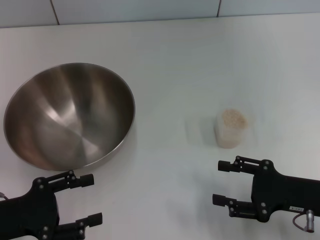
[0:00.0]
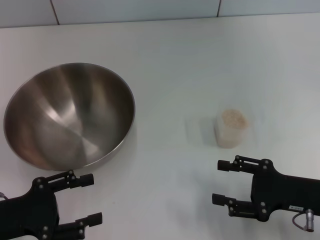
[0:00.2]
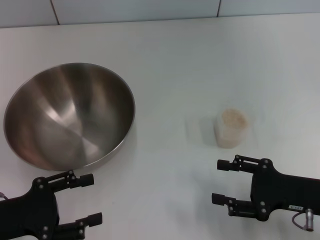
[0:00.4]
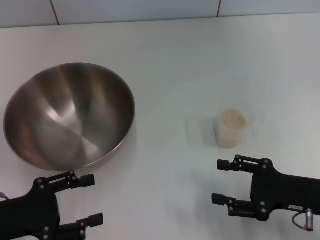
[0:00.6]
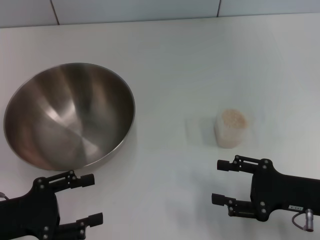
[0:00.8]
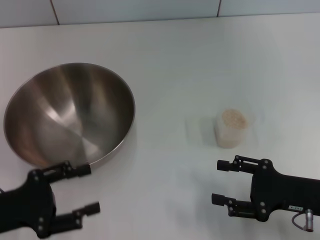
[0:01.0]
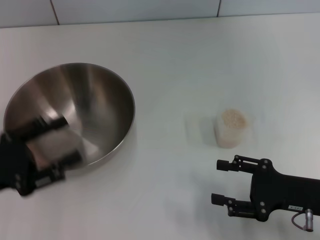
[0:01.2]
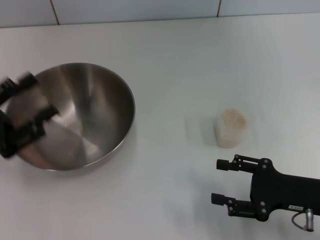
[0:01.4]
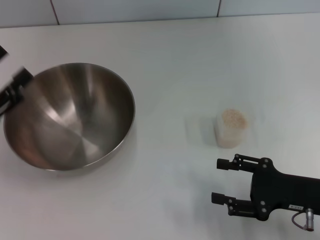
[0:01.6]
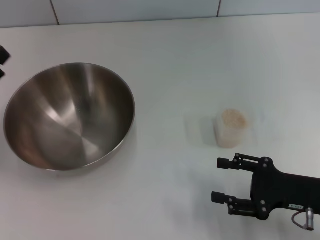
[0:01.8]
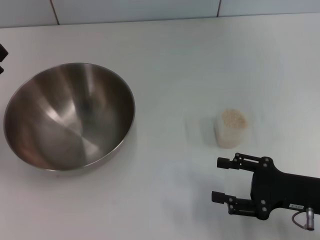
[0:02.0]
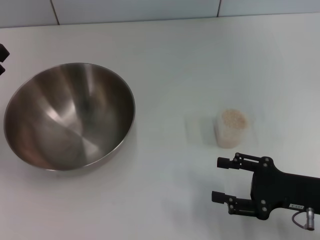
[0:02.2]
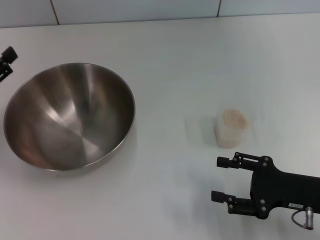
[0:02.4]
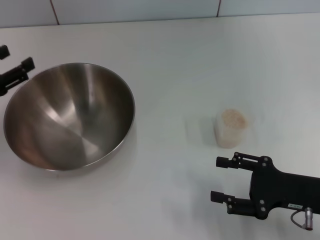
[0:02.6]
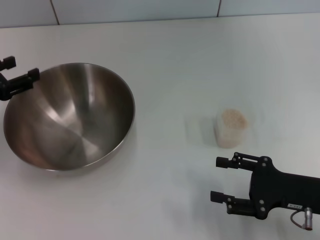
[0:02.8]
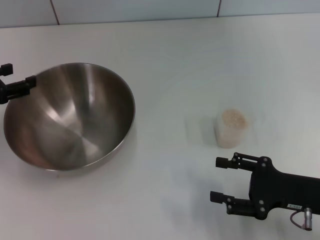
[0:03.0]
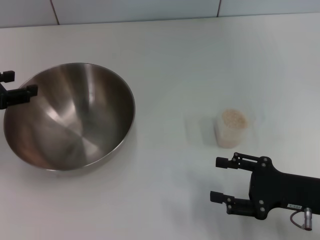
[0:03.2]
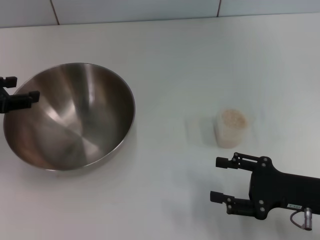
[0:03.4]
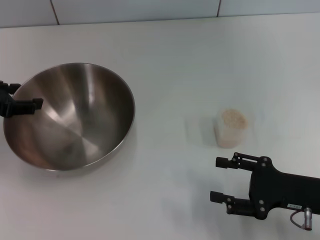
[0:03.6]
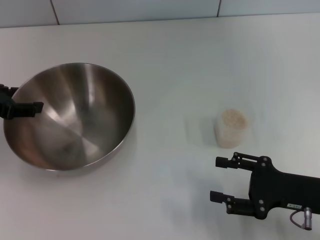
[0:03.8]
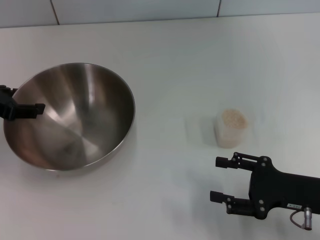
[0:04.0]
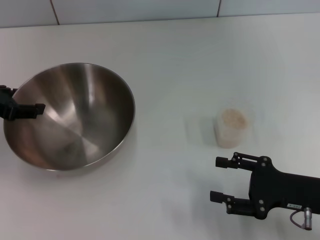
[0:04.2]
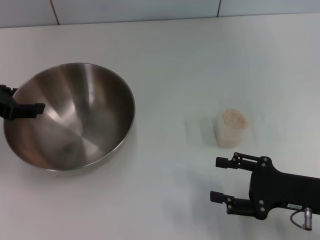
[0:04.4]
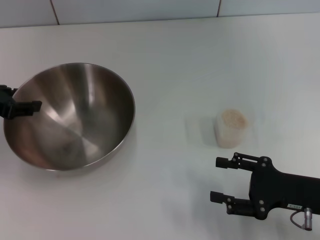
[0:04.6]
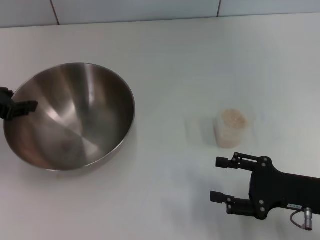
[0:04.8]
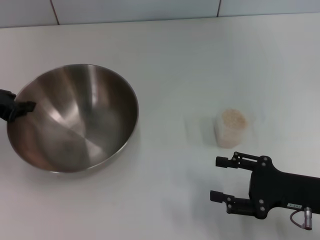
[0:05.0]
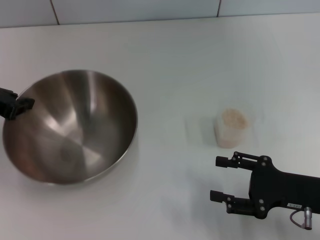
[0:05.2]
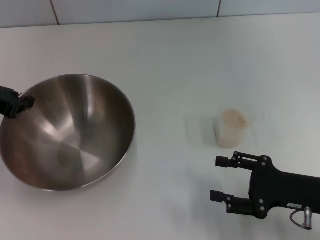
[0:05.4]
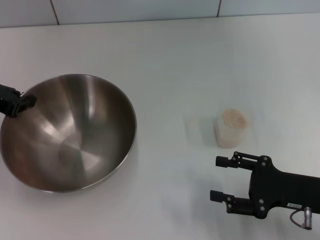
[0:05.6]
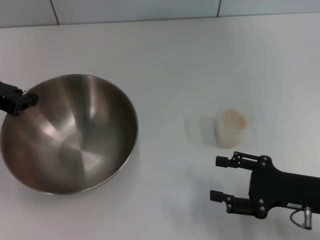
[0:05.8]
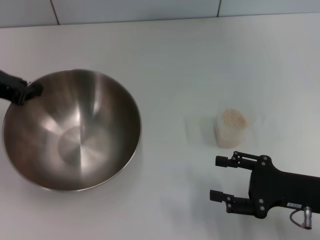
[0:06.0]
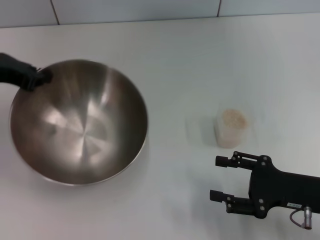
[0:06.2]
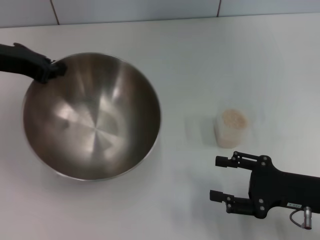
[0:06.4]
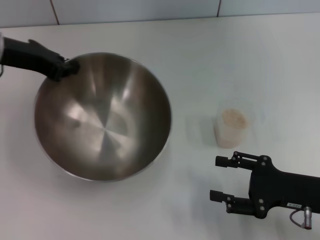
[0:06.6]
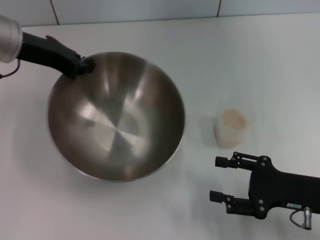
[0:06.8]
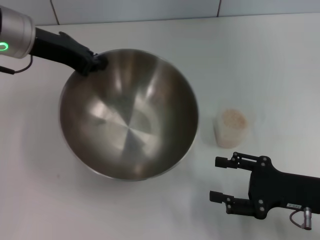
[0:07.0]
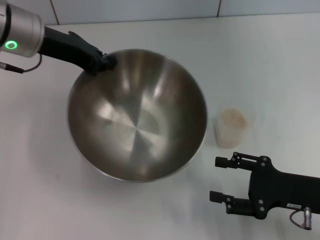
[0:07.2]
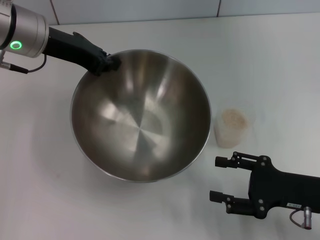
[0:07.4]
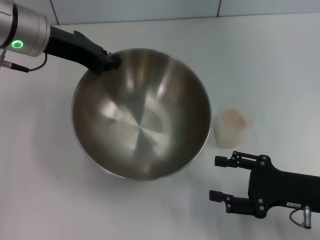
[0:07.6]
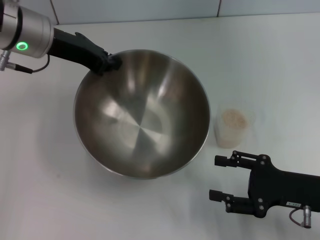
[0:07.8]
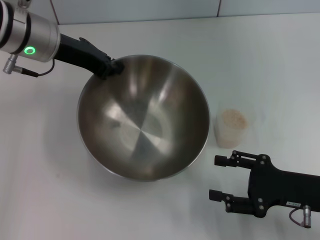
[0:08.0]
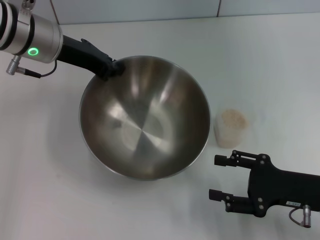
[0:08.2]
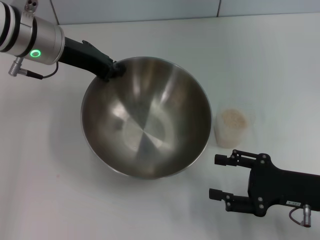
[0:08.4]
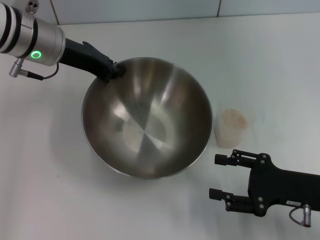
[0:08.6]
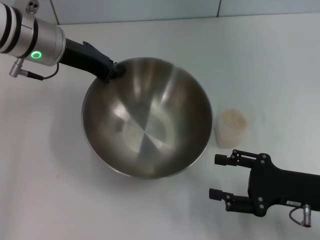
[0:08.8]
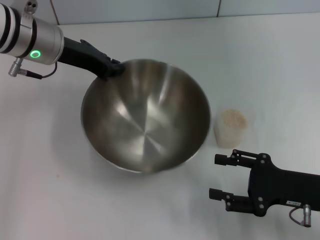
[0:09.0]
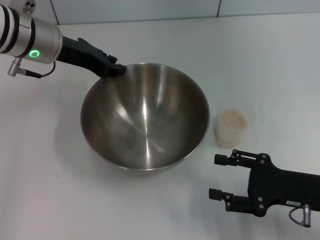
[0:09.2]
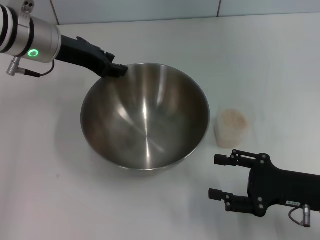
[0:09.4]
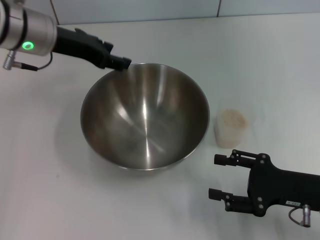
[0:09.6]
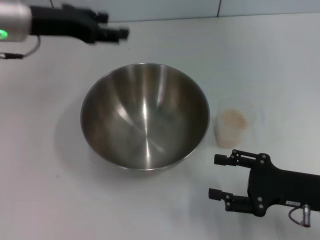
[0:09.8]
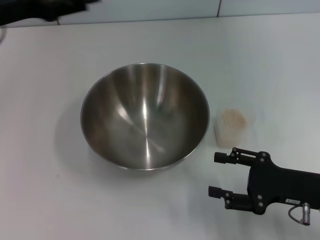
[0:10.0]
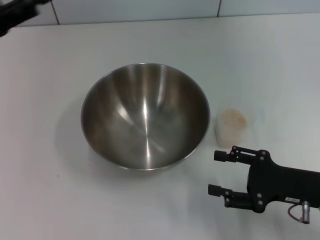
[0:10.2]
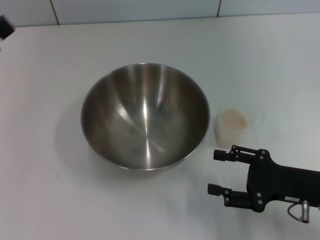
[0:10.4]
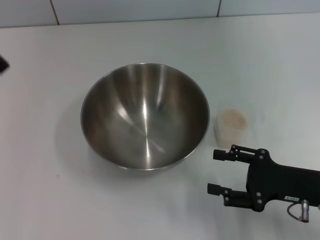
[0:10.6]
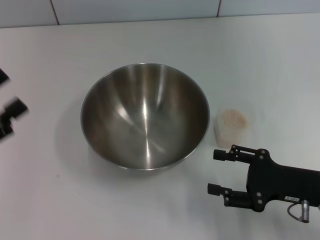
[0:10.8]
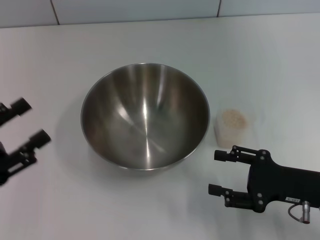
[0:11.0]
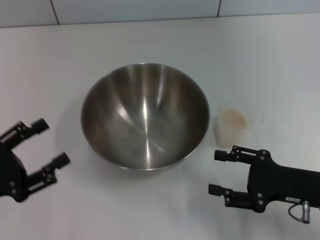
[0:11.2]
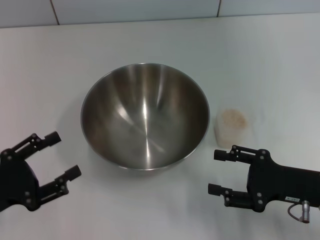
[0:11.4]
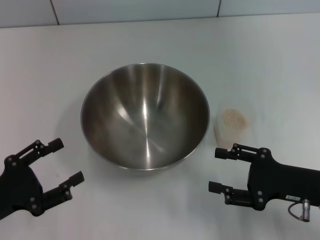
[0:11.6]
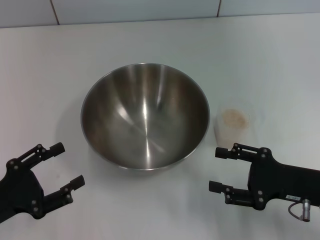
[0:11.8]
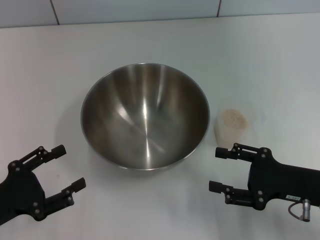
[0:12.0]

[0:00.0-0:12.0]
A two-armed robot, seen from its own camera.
Task of the whole recording: Place the bowl in the middle of the table with one hand and pour the rice from the grain cup into it with the other hand.
Step, 0:00.0 to 0:06.0: Pick up the bowl with the left gripper.
Step, 0:06.2 to 0:10.2: Place the bowl in the center of view with the left gripper.
0:00.0 to 0:01.6: The left gripper moves about 5 cm.
0:01.6 to 0:03.0: The left gripper is displaced forward by some 10 cm.
0:04.4 to 0:06.0: The left gripper closes.
0:06.0 to 0:07.6: The left gripper travels to the right by approximately 10 cm.
0:07.6 to 0:09.0: The grippers make only small movements.
0:09.0 to 0:10.4: The left gripper shifts about 20 cm to the left and backward, and opens its fingers.
0:10.4 to 0:12.0: The left gripper heads downward and backward, covering approximately 15 cm.

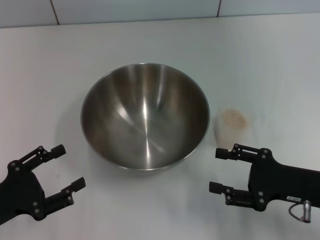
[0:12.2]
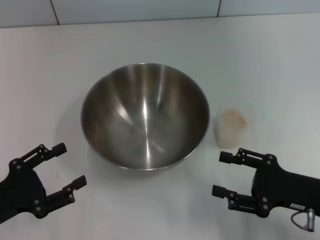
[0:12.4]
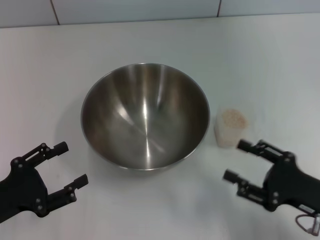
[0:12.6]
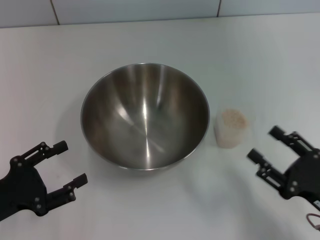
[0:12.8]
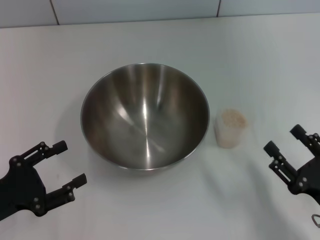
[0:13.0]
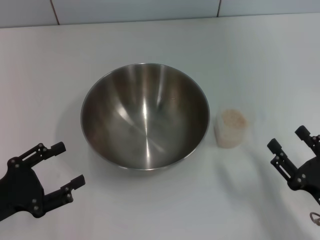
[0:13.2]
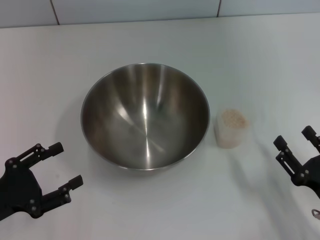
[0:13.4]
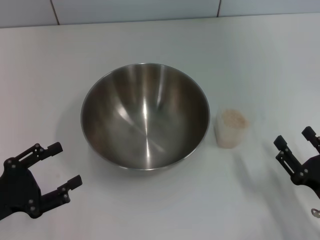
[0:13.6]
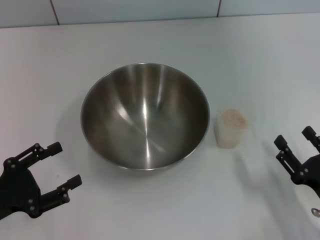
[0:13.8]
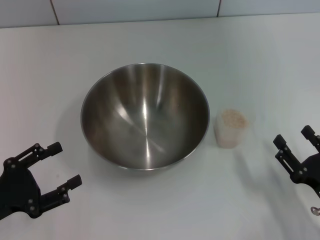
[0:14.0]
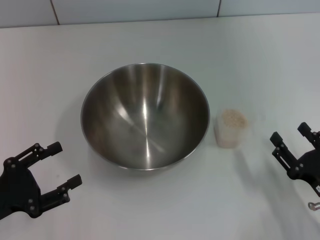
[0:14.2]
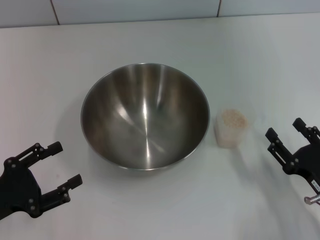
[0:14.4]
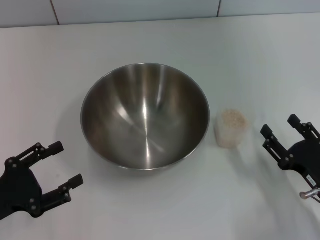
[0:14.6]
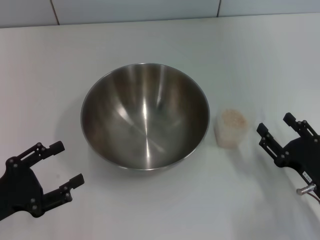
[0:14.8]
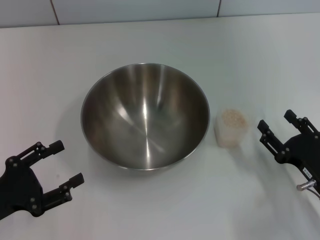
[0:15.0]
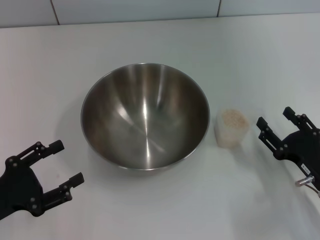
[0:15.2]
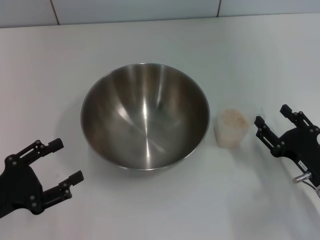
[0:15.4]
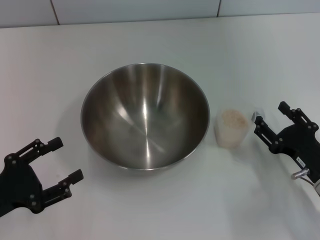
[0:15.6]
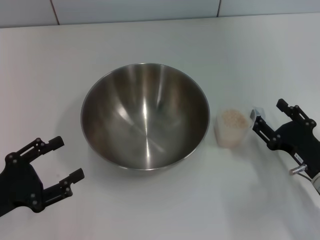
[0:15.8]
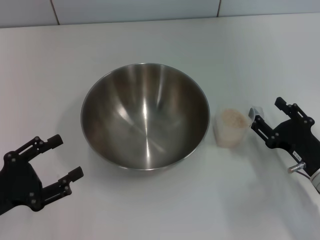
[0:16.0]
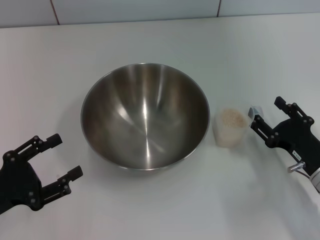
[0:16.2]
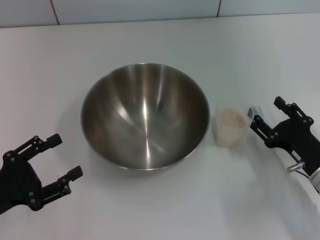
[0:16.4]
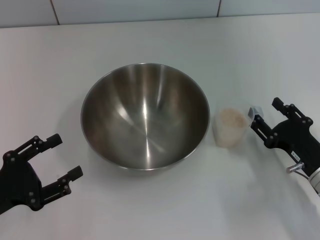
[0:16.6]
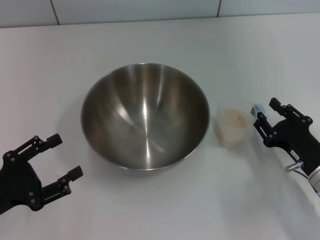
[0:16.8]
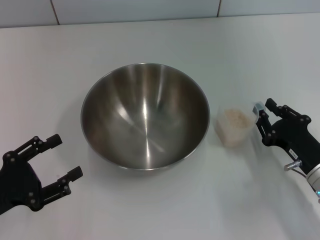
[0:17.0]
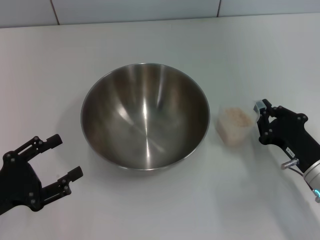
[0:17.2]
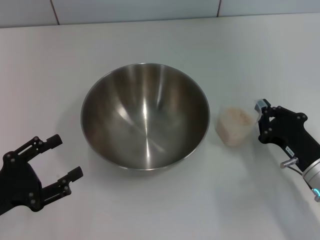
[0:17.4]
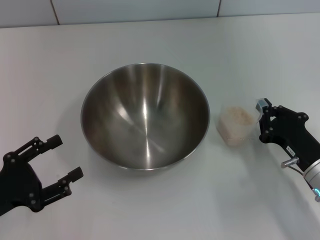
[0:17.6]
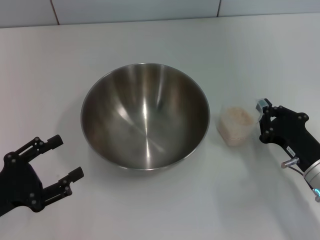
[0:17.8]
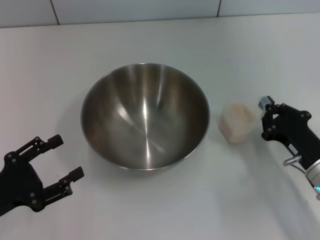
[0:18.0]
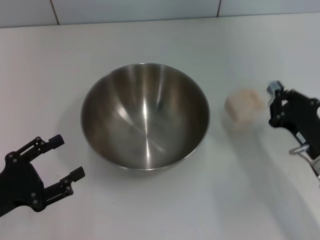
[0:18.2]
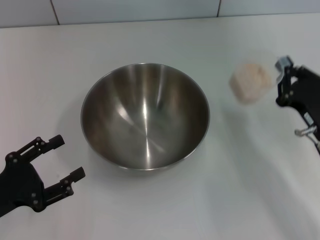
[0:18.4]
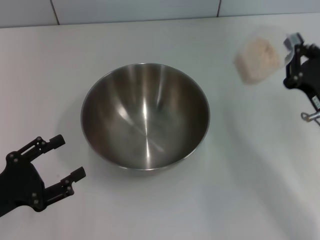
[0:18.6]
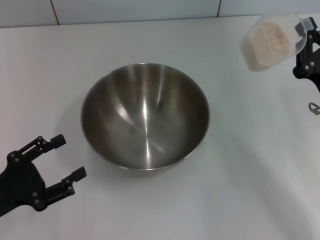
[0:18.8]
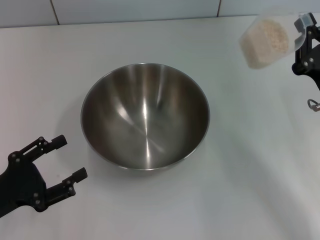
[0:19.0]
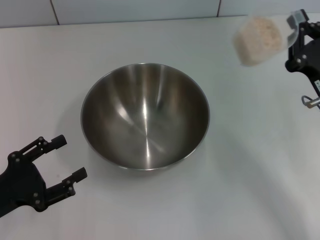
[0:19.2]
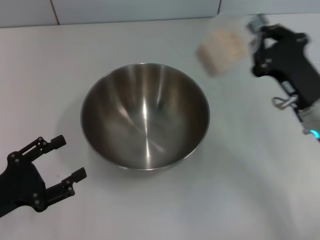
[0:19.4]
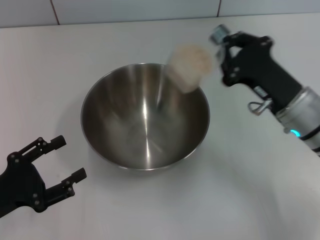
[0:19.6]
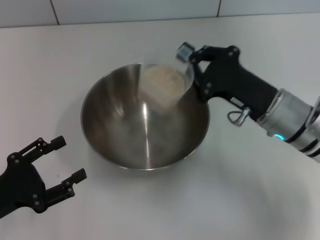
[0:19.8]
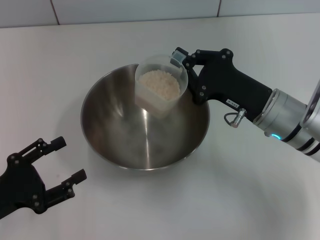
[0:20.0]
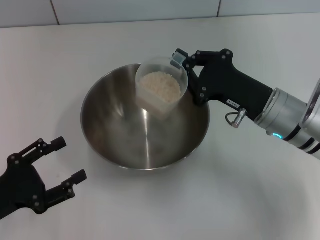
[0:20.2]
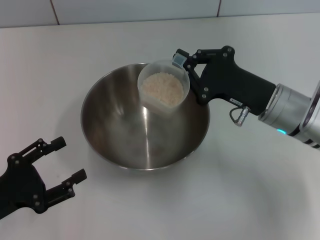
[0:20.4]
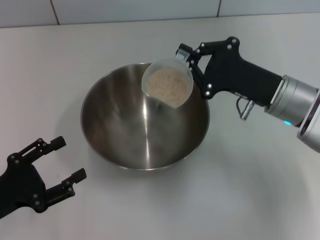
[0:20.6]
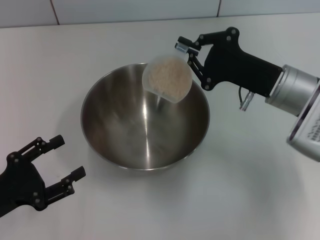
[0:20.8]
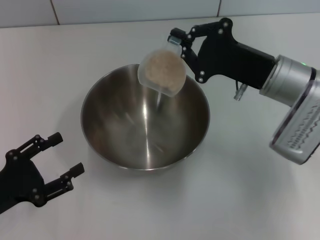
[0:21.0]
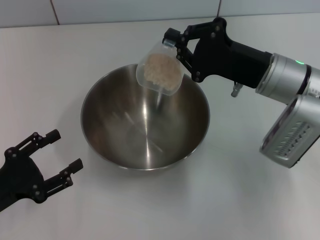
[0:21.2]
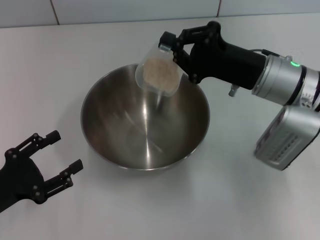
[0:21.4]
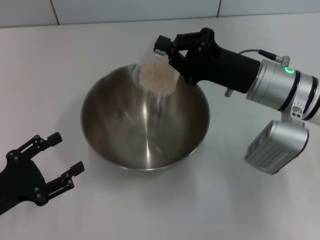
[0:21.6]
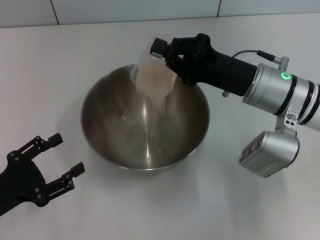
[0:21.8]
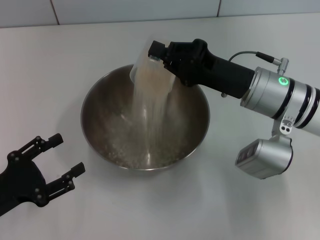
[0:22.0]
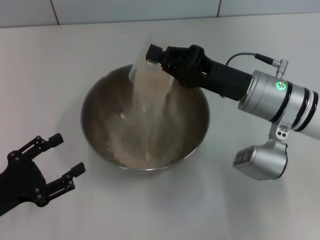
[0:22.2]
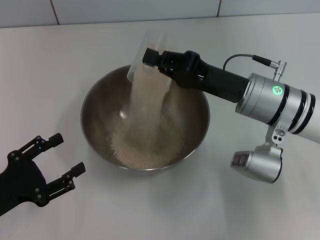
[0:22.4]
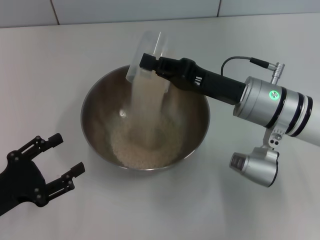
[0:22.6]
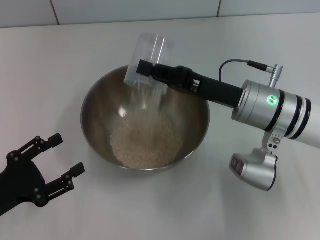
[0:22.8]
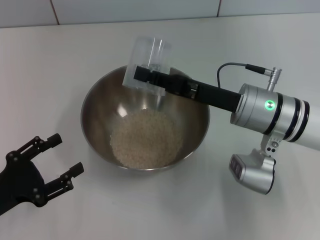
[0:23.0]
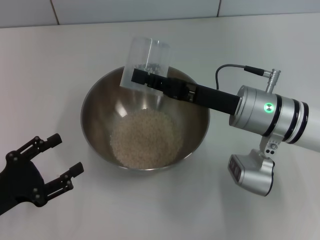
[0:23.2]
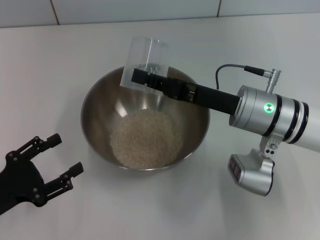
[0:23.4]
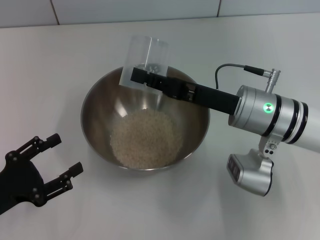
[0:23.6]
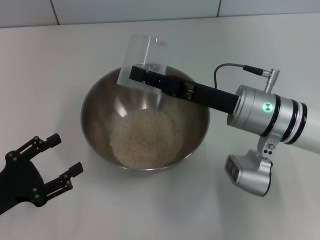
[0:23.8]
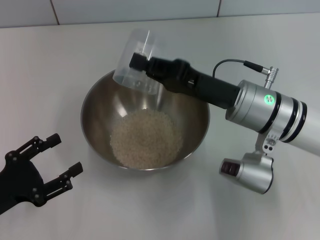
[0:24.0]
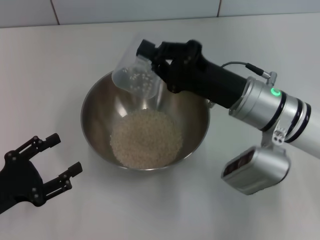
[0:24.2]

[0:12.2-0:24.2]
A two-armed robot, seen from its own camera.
Task of the whole recording: Place the bowl in the middle of the table with one hand and pour the rice from the grain cup into it with the other hand.
Step, 0:12.2 to 0:18.8: Pick up the cup with rice in it with the right gripper.
0:12.2 to 0:13.8: The right gripper is displaced backward by roughly 5 cm.
0:13.8 to 0:15.2: The right gripper shifts about 5 cm forward.
0:15.2 to 0:16.6: The grippers stay close to where they were, moving slightly.
0:16.6 to 0:18.2: The right gripper closes up.
0:18.2 to 0:19.8: The right gripper heads to the left, forward and upward, covering some 10 cm.
0:19.8 to 0:21.2: The right gripper changes place by some 5 cm.
